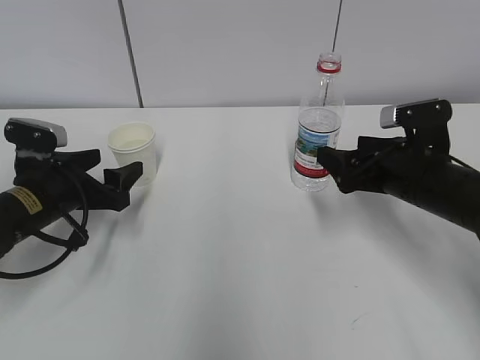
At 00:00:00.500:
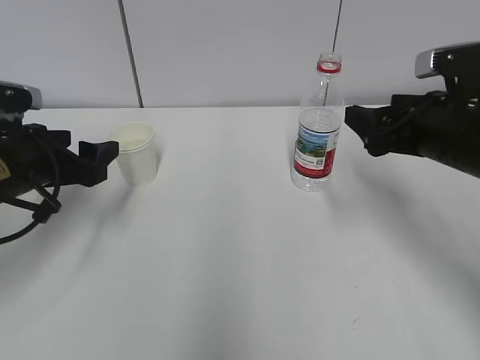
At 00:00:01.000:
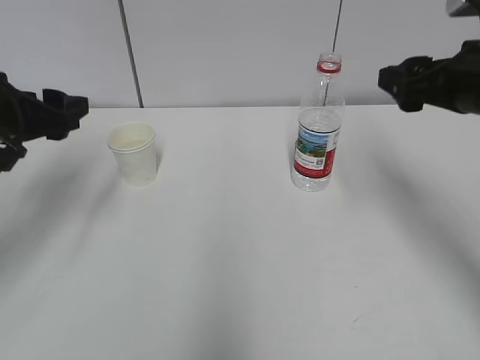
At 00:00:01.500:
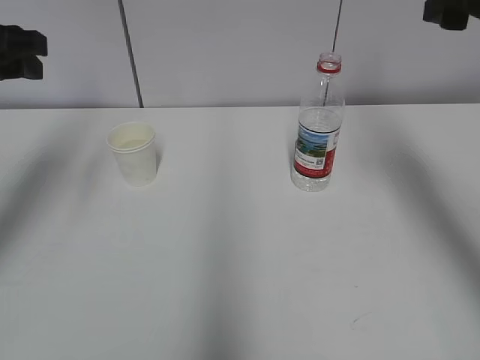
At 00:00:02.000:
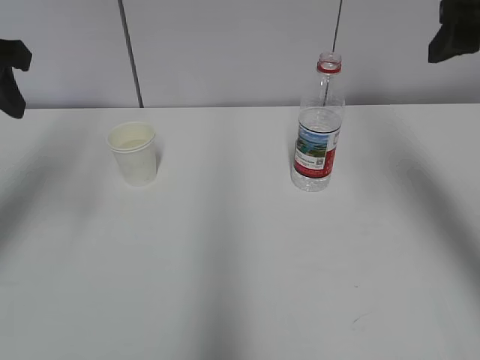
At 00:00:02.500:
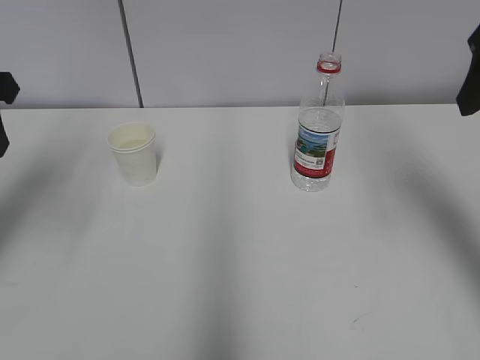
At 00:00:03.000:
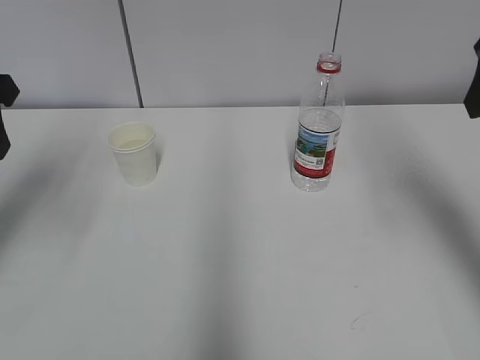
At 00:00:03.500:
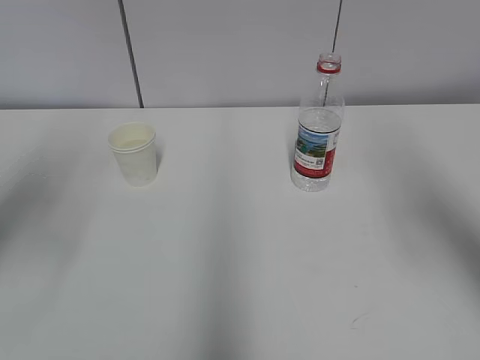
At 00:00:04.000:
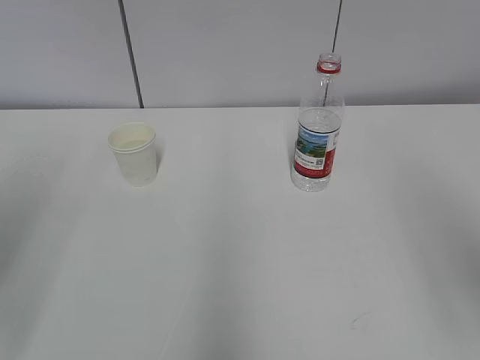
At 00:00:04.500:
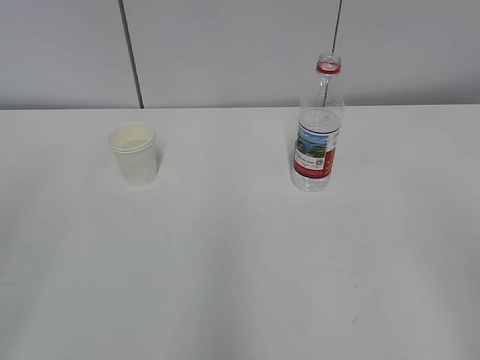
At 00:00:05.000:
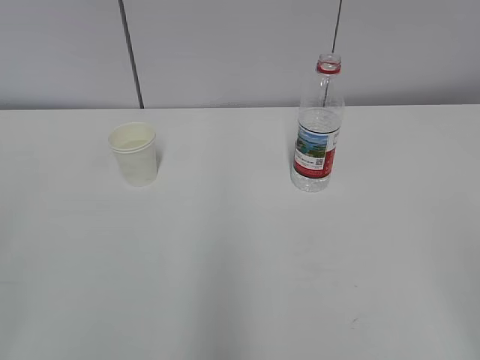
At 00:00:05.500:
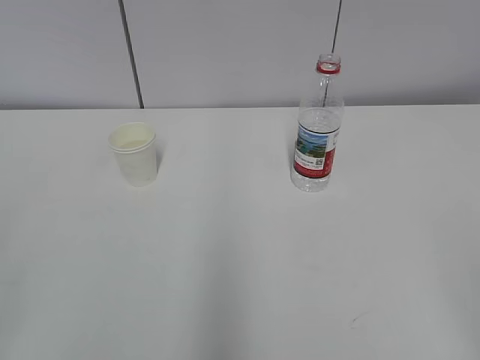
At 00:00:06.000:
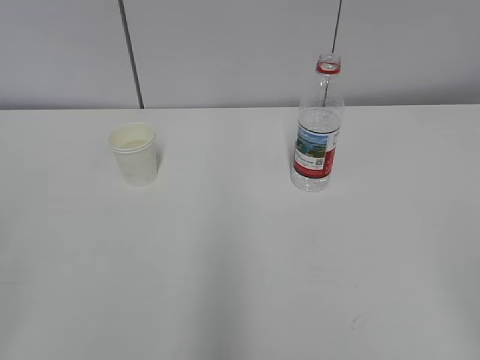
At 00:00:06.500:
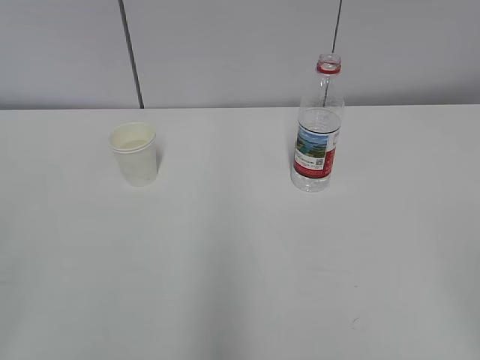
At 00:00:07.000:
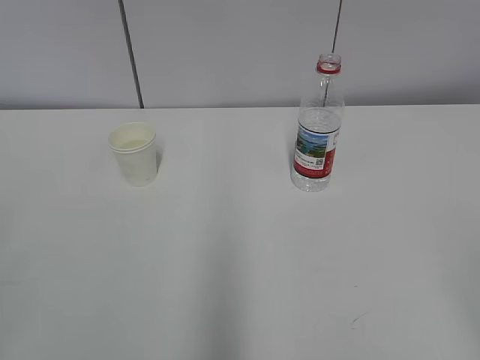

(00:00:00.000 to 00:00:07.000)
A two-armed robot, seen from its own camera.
00:00:00.000 - 00:00:02.000: Both grippers travel together upward, approximately 20 cm.
00:00:02.000 - 00:00:03.500: The left gripper is displaced backward by roughly 5 cm. The right gripper moves backward, approximately 10 cm.
00:00:03.500 - 00:00:05.000: Both grippers move backward, about 25 cm.
